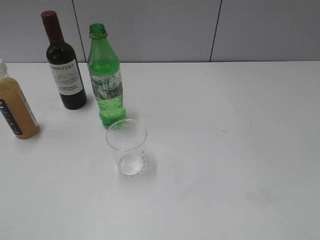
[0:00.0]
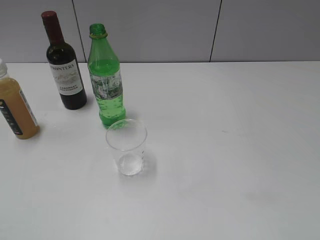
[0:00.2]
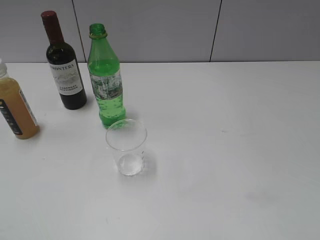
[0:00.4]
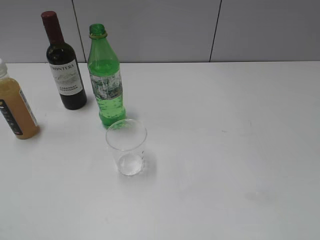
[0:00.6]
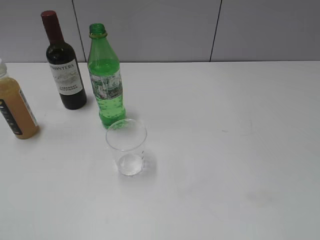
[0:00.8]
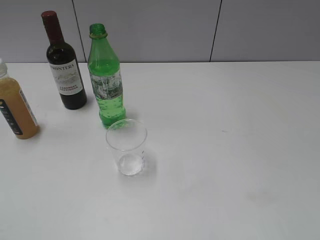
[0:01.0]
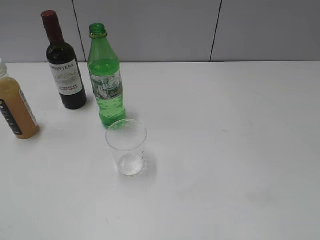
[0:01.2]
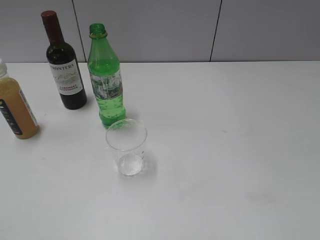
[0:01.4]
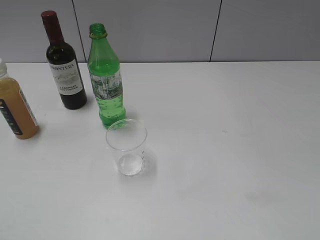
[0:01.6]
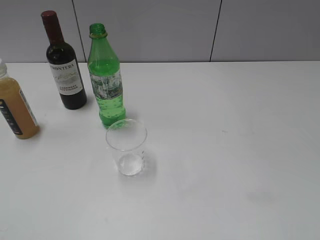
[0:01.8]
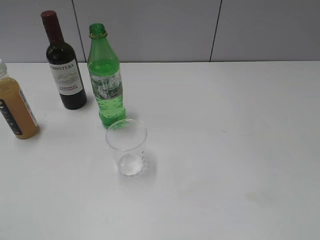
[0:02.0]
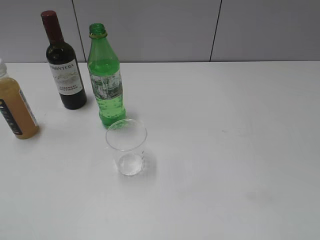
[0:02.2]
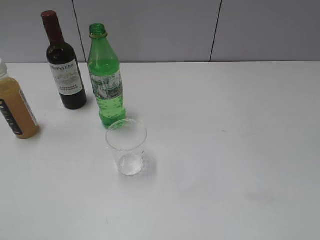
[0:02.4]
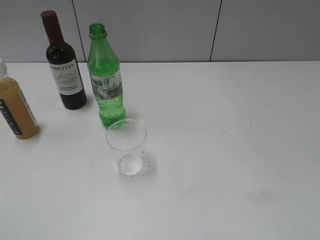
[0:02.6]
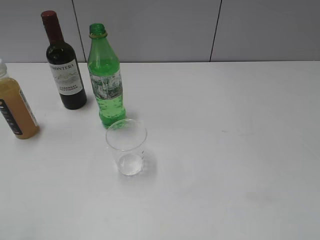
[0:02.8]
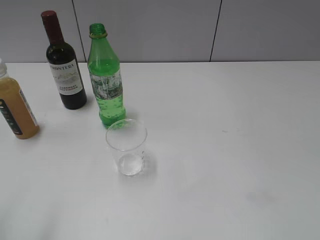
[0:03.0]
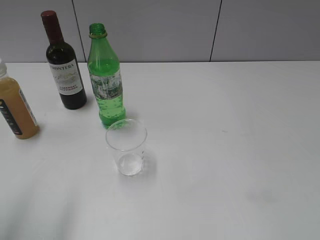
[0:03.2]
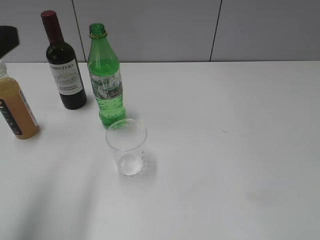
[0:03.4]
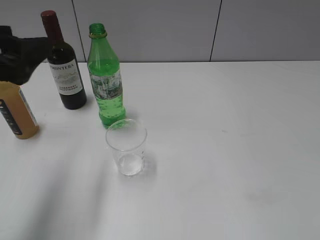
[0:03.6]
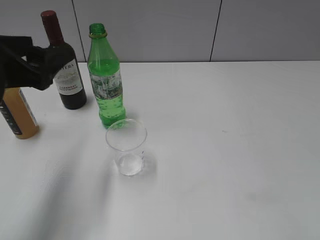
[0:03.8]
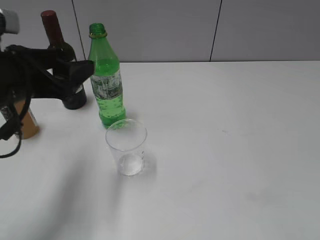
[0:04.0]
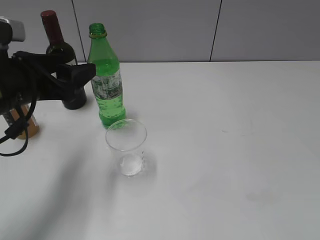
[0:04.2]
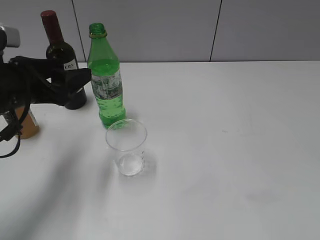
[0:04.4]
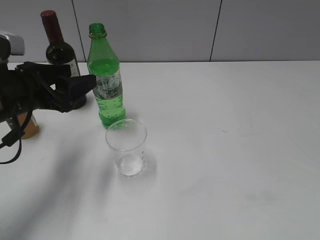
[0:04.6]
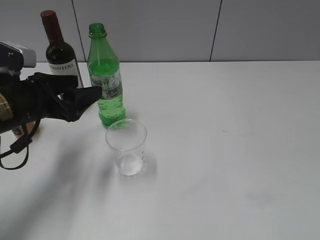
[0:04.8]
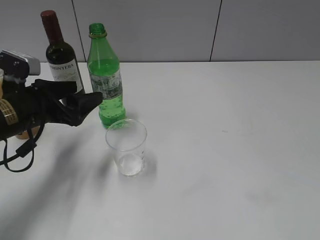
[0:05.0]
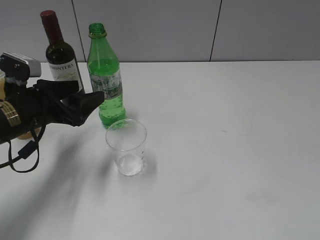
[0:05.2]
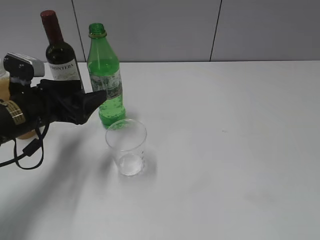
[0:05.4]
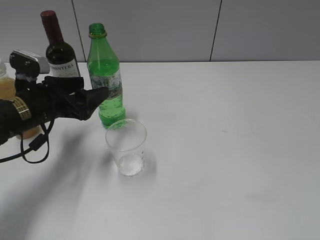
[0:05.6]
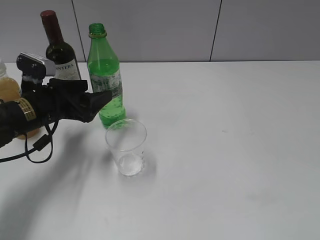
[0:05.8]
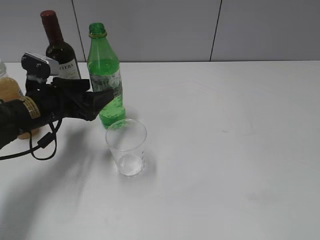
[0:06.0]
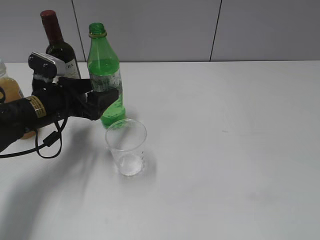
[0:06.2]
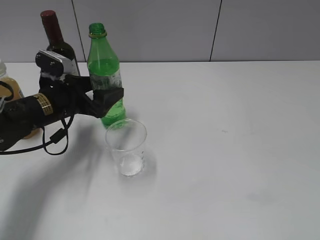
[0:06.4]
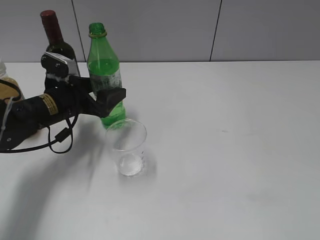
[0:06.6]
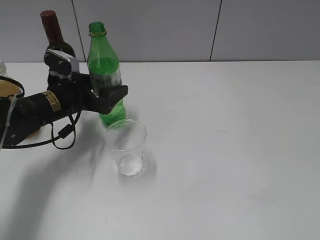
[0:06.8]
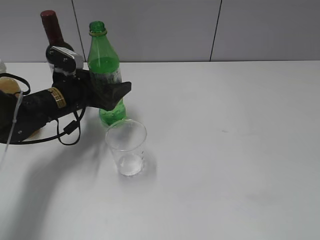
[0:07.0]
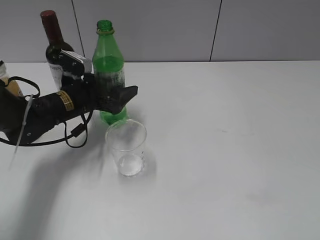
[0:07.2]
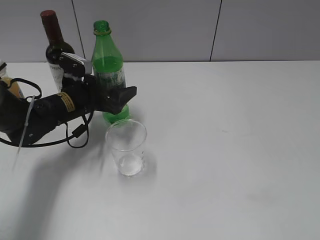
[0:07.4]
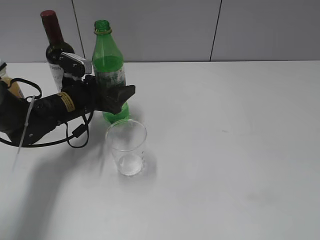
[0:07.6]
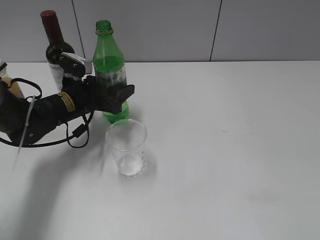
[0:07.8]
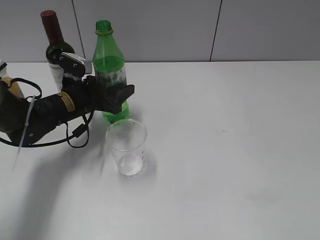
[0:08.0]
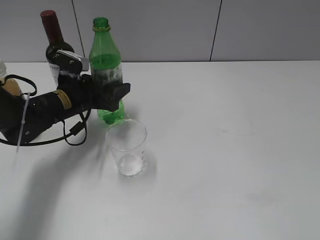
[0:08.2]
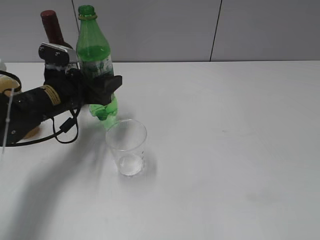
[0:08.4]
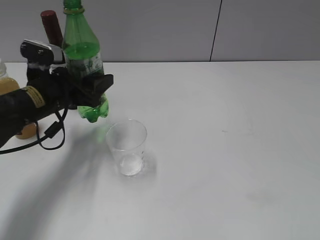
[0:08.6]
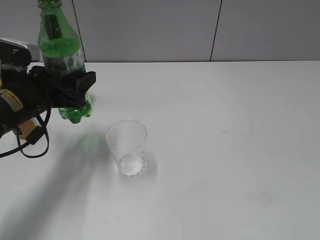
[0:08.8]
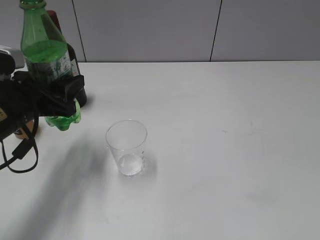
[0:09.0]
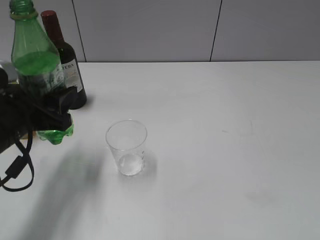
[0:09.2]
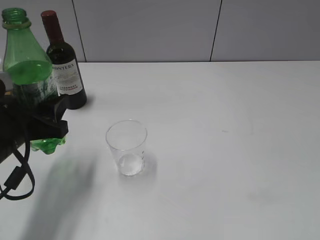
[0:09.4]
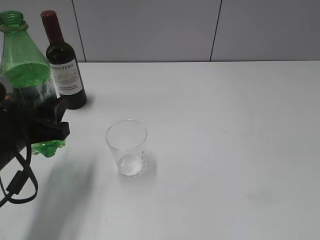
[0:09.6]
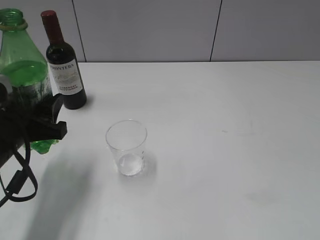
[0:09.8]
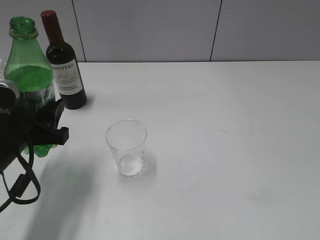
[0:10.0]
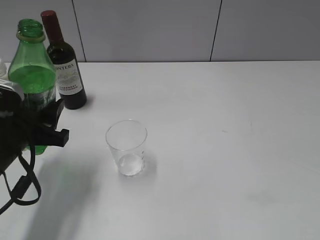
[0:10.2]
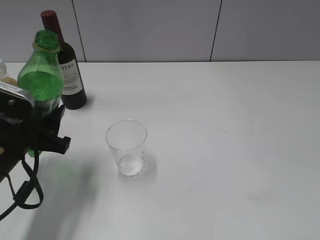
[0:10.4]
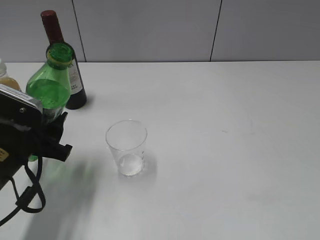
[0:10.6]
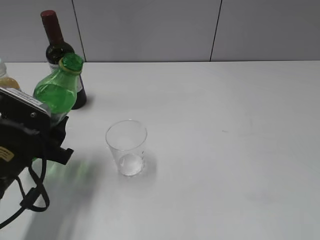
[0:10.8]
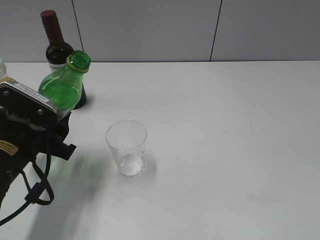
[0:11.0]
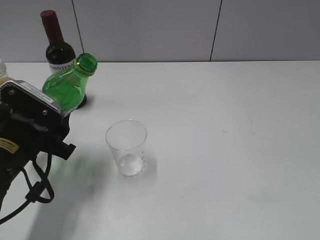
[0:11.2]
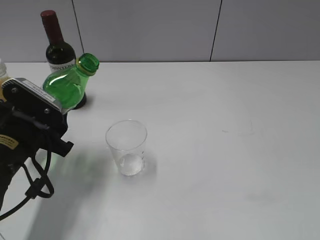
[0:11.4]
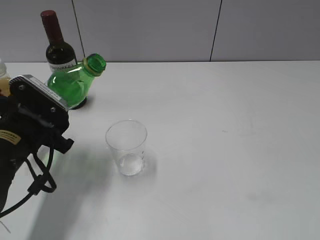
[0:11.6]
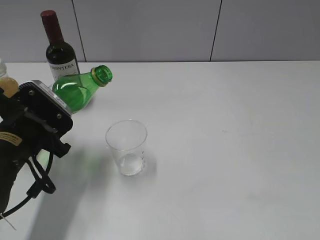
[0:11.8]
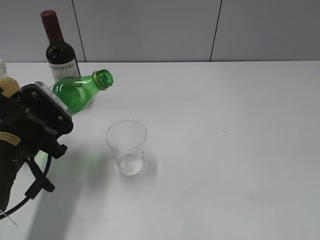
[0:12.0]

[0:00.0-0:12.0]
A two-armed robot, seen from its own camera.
Step, 0:00.0 to 0:07.6: Grasp the bottle with sprite with left gripper.
0:03.0 to 0:04.4: The left gripper shifts some 20 cm forward and downward.
0:04.4 to 0:06.0: The left gripper moves downward and forward, about 10 cm.
0:06.0 to 0:07.6: The left gripper ends up about 5 cm from where it was, and closes its fingers.
0:07.6 to 0:09.0: The left gripper heads backward and upward, covering roughly 15 cm.
0:09.0 to 0:10.4: The left gripper shifts by some 5 cm.

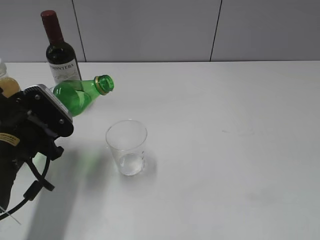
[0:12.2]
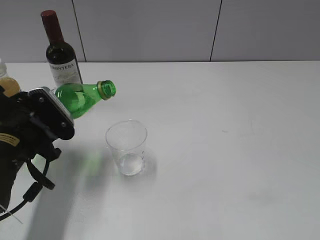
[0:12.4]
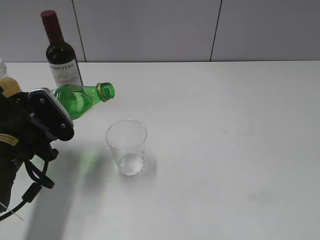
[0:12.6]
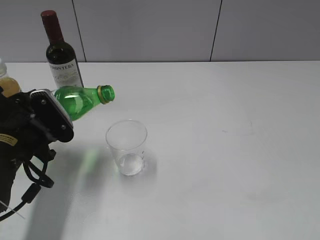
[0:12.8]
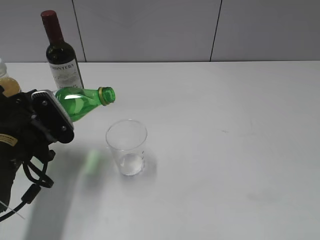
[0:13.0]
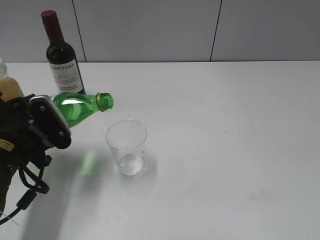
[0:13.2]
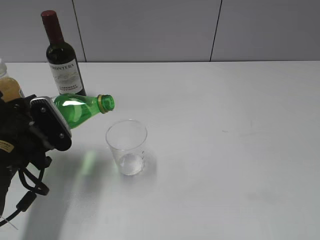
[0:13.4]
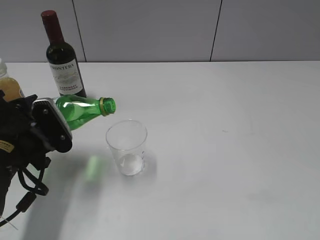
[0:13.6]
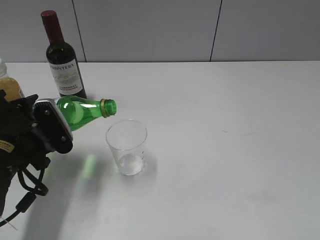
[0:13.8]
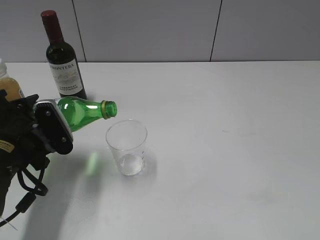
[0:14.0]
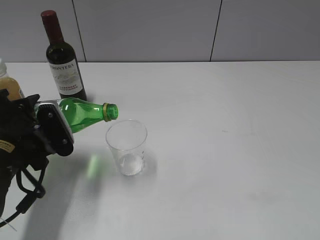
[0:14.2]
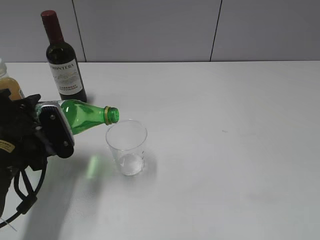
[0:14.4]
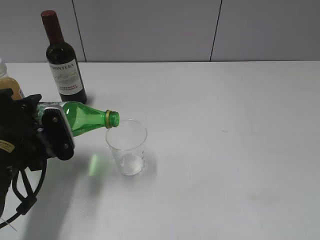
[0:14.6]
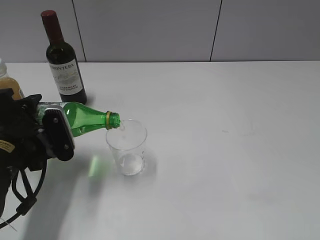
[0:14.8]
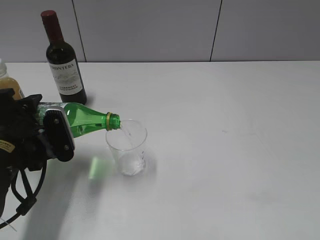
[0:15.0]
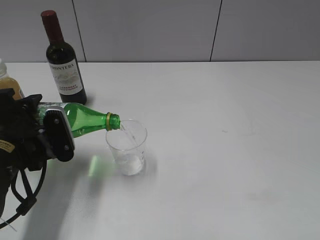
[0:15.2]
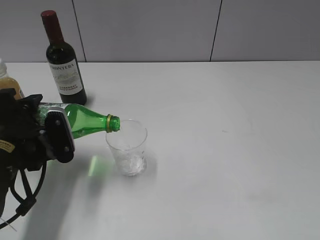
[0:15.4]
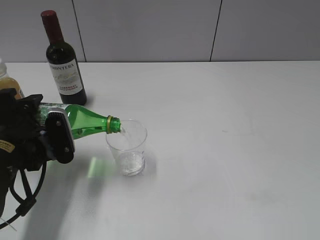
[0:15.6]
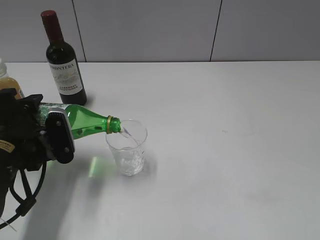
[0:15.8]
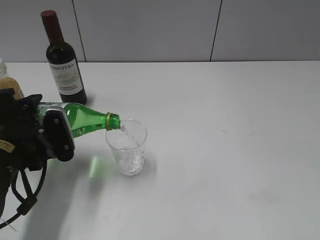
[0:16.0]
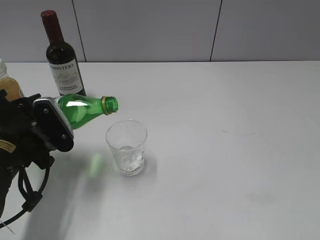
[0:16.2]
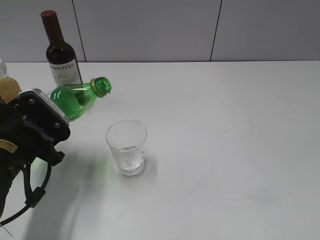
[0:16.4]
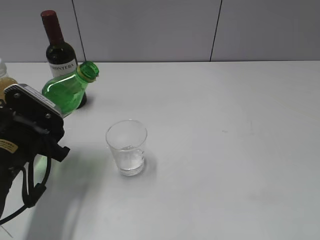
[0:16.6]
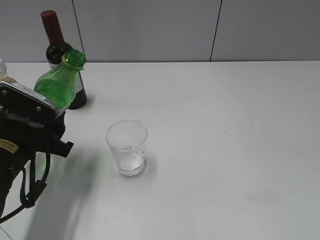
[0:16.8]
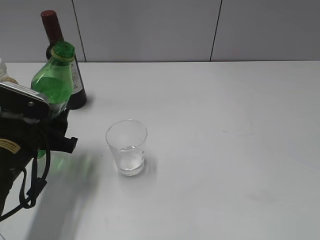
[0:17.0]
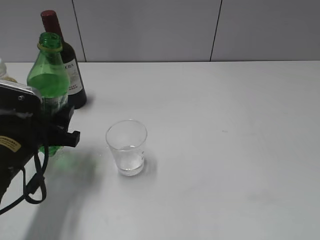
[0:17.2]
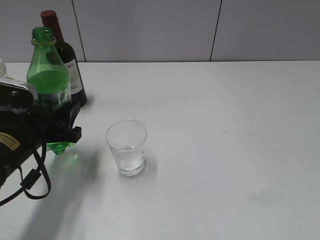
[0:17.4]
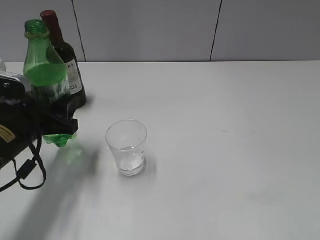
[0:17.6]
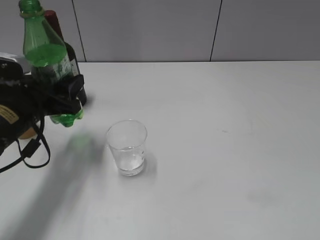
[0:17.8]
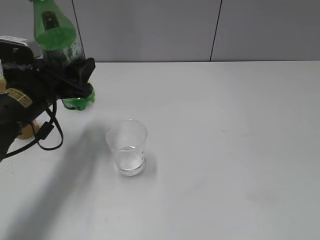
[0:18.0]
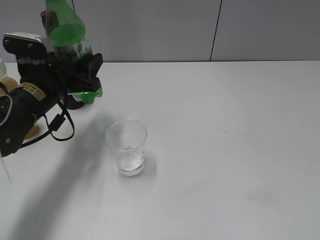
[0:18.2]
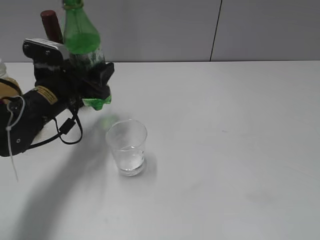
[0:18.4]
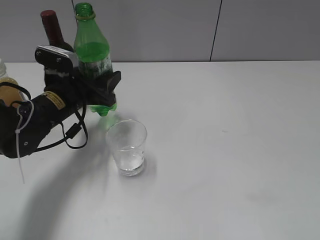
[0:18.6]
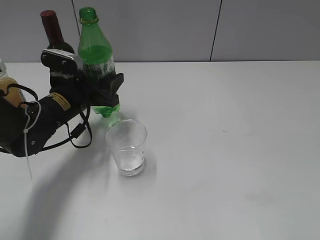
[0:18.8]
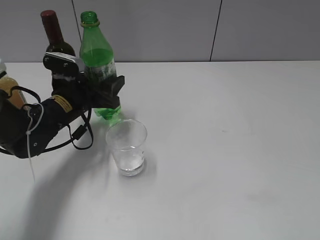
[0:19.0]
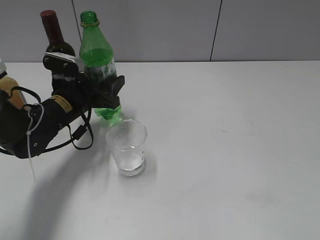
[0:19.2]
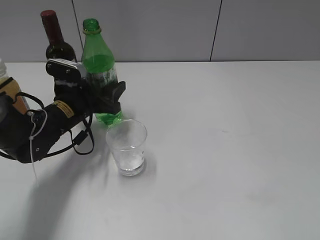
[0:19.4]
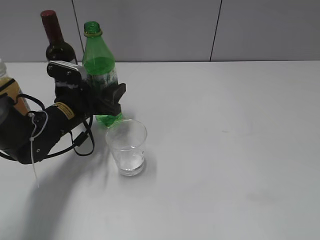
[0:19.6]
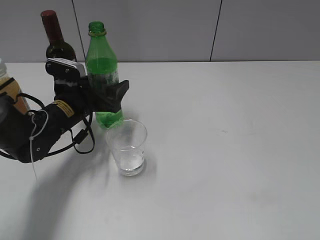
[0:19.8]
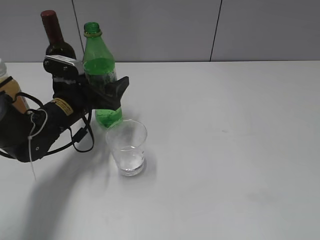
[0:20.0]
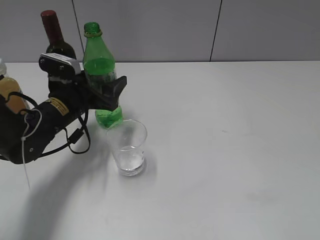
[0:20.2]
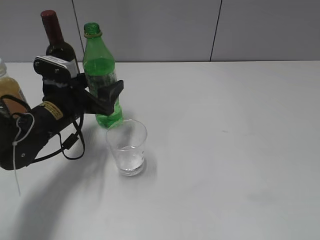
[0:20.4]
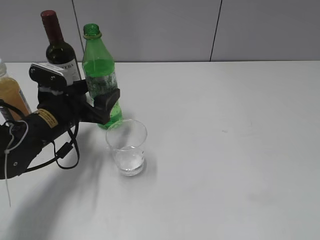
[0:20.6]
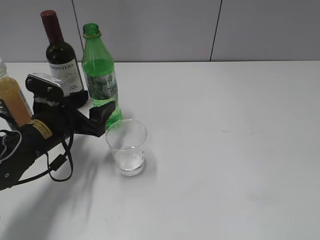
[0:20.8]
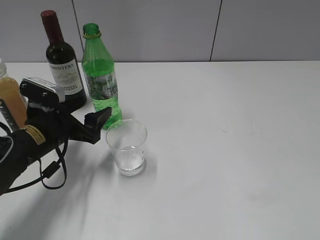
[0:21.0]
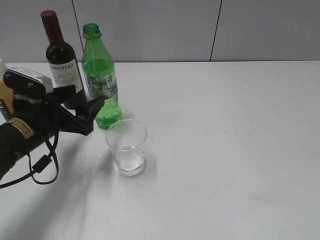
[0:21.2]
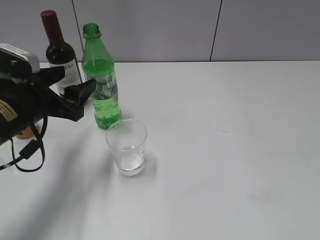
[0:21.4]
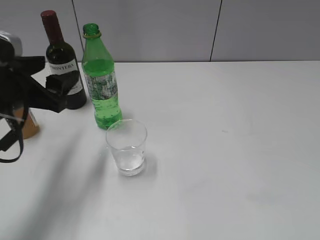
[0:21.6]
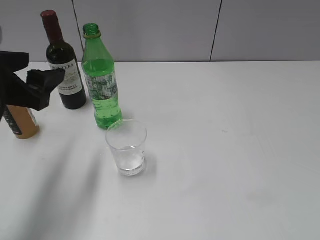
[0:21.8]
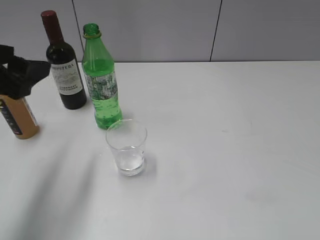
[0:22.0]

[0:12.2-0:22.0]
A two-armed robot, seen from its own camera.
Step, 0:12.2 to 0:16.2: Pour the sprite from bottle to cup with left gripper.
Step, 0:16.6 to 0:20.8: Place the sprite bottle on the table with left gripper.
0:12.2 to 0:13.6: The grippers make only small movements.
0:13.6 to 0:15.0: The grippers make only small movements.
0:16.4 to 0:17.8: The left gripper moves forward, roughly 5 cm.
0:17.8 to 0:19.2: The left gripper goes some 10 cm forward.
0:19.2 to 0:20.6: The left gripper opens its fingers.
0:20.6 to 0:22.0: The left gripper moves upward and backward, approximately 20 cm.

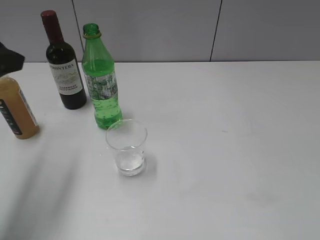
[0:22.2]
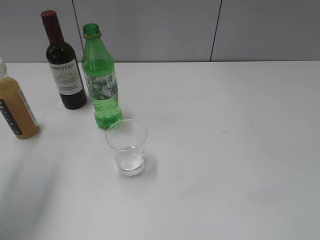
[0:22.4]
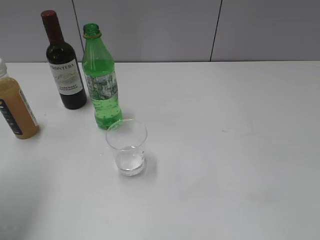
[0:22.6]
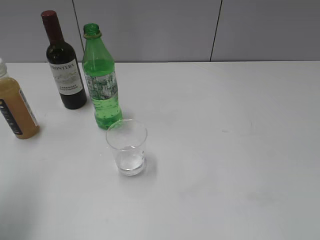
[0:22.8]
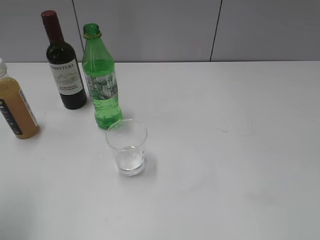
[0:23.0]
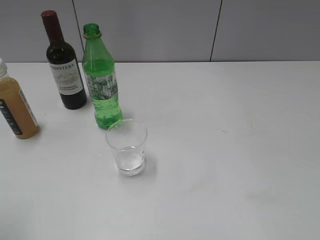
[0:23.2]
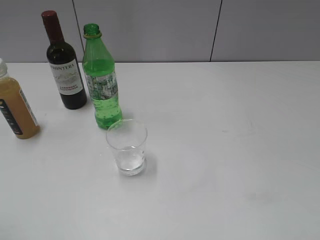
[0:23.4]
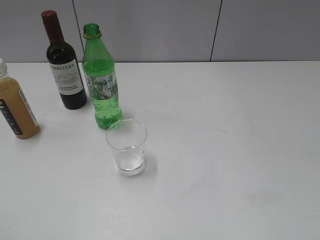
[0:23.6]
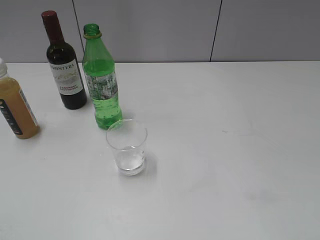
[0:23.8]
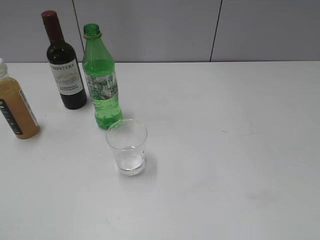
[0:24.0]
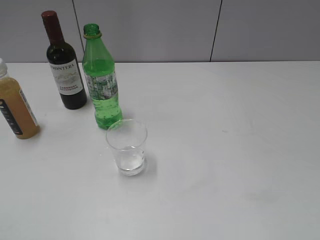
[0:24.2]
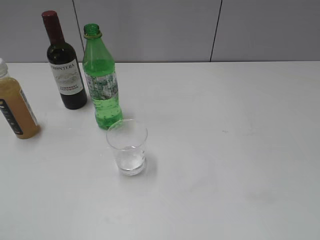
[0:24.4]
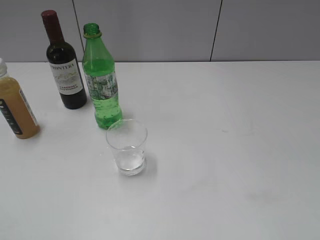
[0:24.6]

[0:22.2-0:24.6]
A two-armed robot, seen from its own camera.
0:22.2 to 0:23.4: The left gripper goes approximately 15 cm backward.
